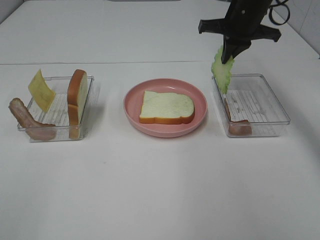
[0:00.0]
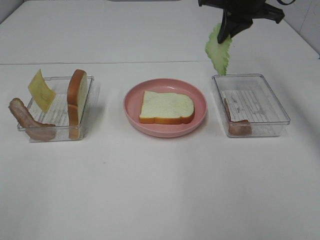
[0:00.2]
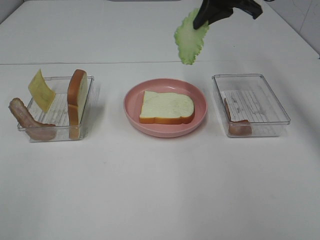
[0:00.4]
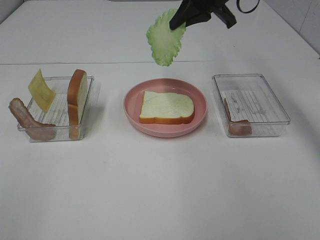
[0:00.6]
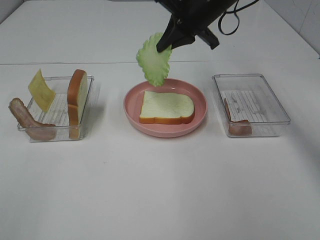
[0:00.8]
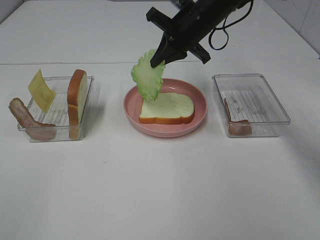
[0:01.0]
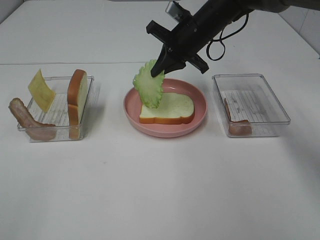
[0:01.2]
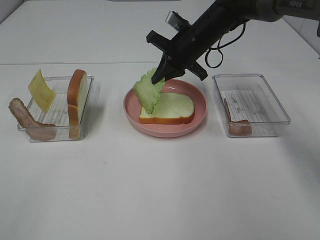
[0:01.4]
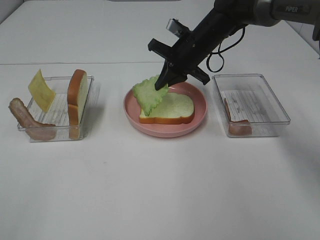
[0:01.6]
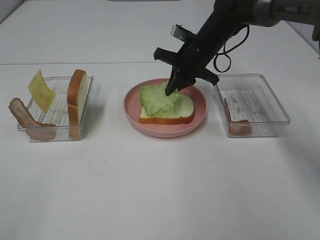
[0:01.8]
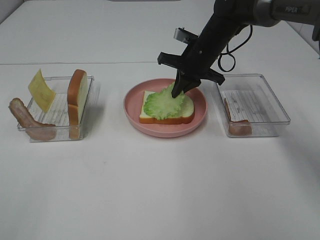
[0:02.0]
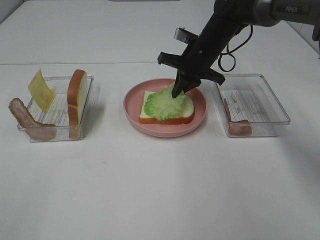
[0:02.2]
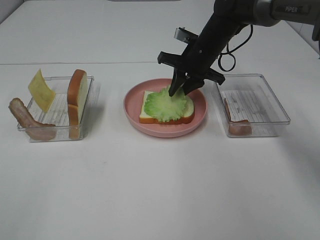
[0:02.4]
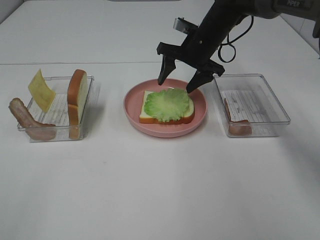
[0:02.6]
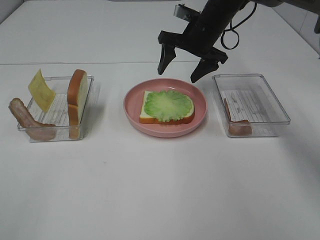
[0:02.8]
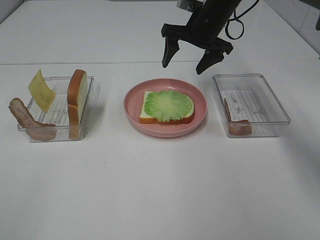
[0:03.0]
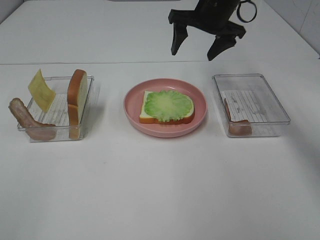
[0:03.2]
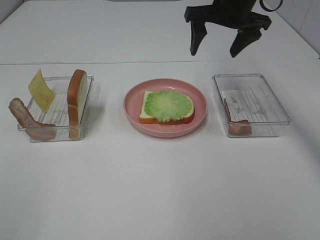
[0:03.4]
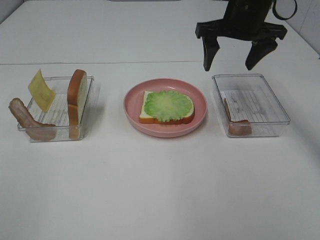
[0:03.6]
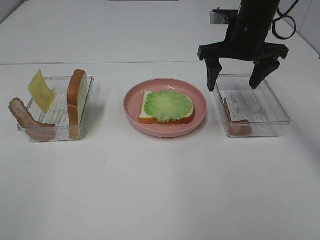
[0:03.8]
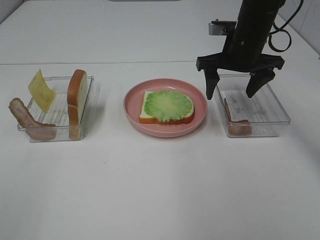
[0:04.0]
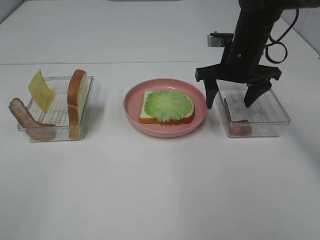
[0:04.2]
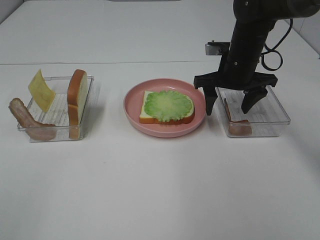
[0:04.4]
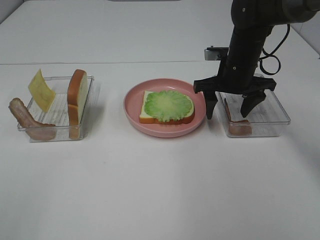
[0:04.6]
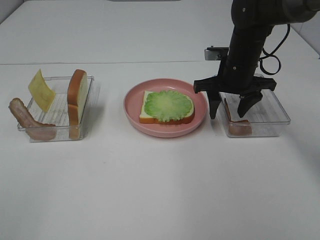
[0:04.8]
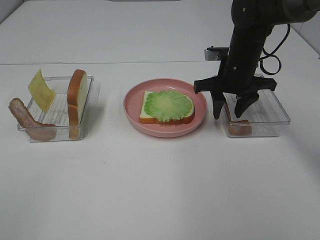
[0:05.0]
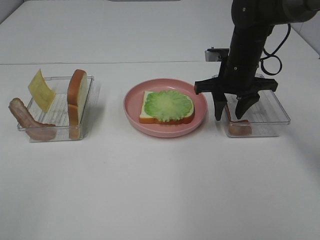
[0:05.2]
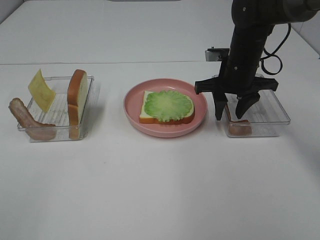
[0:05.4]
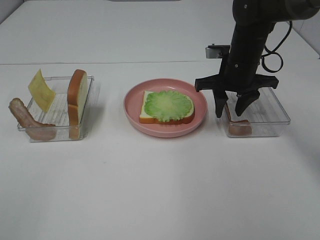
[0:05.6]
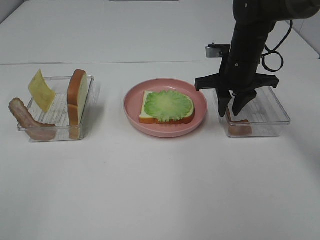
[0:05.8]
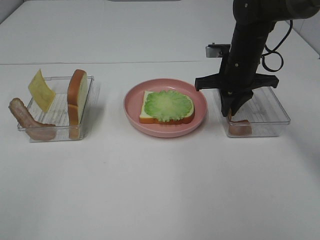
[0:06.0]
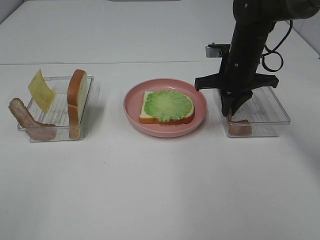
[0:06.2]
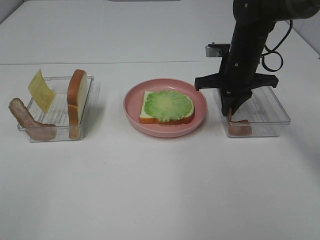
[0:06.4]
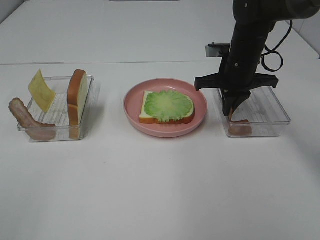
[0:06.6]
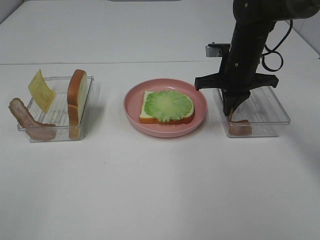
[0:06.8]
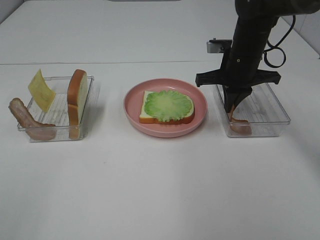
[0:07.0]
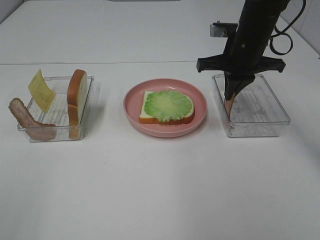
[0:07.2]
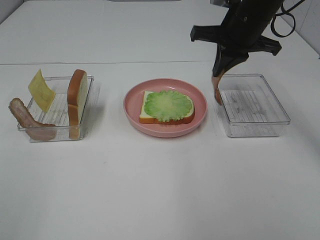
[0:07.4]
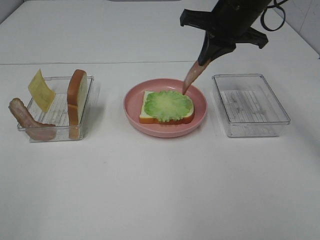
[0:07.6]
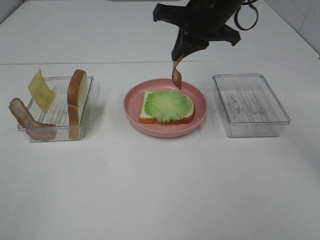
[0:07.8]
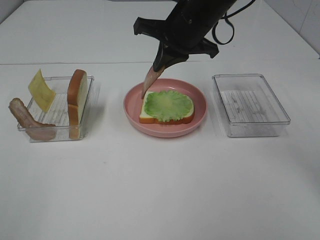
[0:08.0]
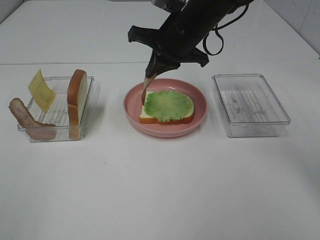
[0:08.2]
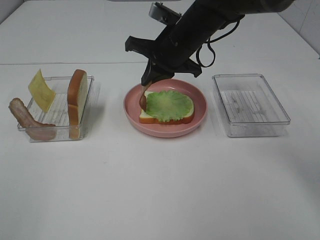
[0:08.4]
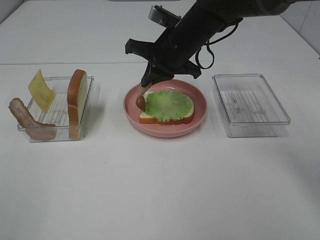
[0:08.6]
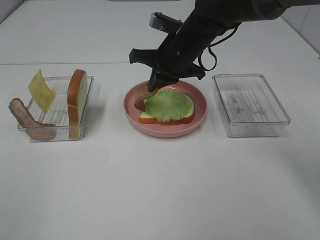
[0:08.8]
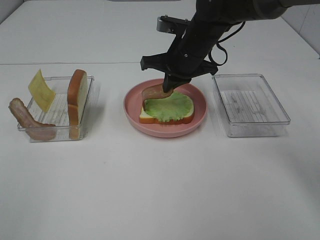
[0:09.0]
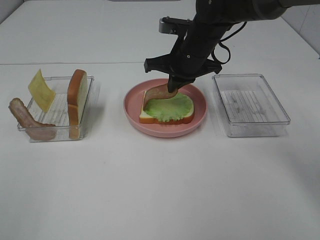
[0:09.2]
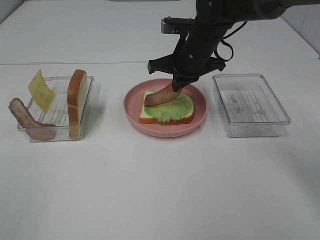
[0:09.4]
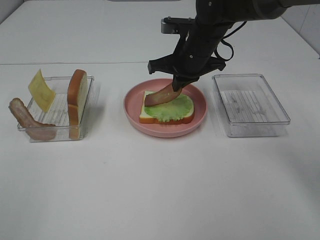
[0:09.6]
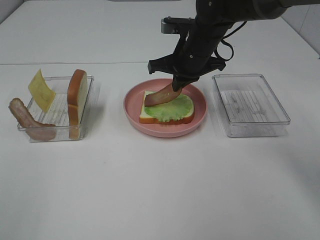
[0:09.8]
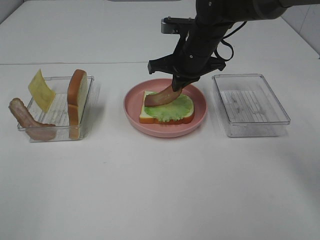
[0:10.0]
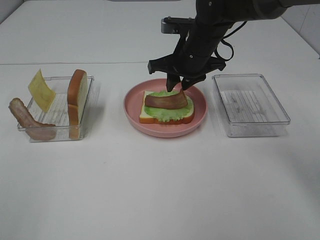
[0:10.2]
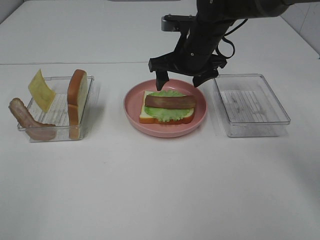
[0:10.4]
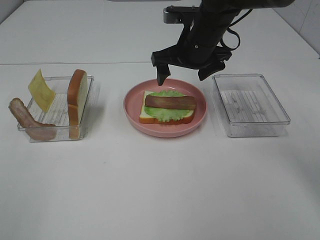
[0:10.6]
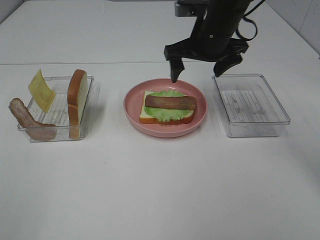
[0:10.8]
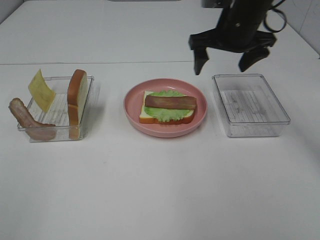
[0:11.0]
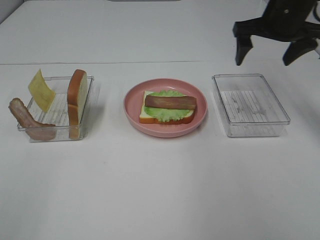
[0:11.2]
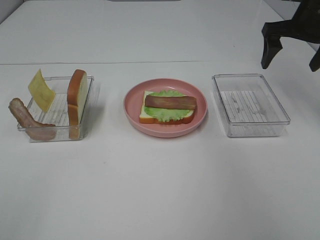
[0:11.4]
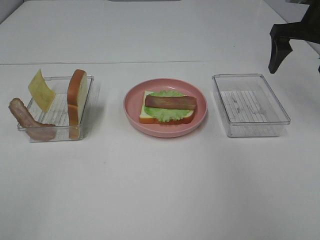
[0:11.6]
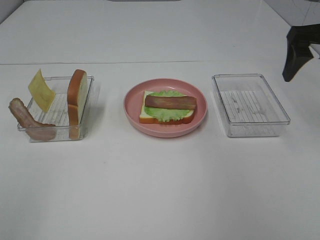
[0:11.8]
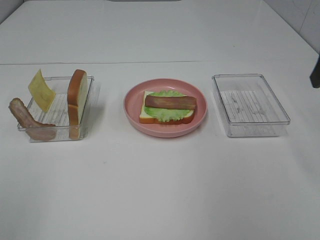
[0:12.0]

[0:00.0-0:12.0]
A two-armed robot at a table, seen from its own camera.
Task of the whole recording: Make sandwiches.
Step, 0:00.0 to 0:02.8: Right hand:place the lettuce slice on the bread slice.
Step, 0:03.0 to 0:06.4: Right hand:grab the bacon.
Step, 0:06.6 to 0:10.4: Right hand:place bacon on lettuce slice.
0:00.0 to 0:01.6: The right gripper goes about 10 cm downward and to the left.
0:01.6 to 0:03.0: The right gripper moves upward, about 5 cm, and opens.
0:03.0 to 0:04.4: The right gripper goes about 10 cm backward, downward and to the right.
0:04.4 to 0:06.0: The right gripper closes.
0:06.0 to 0:07.6: The right gripper moves upward, about 10 cm.
0:07.6 to 0:09.0: The right gripper travels downward and to the left by approximately 10 cm.
0:09.0 to 0:10.4: The right gripper opens up.
0:10.4 to 0:12.0: The right gripper shifts roughly 30 cm to the right, backward and upward.

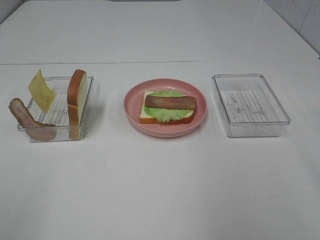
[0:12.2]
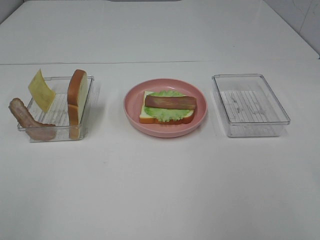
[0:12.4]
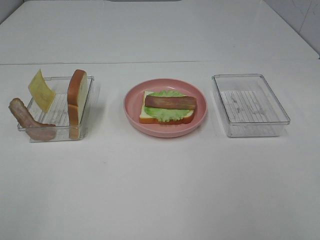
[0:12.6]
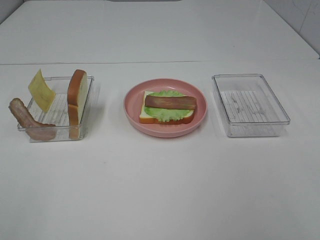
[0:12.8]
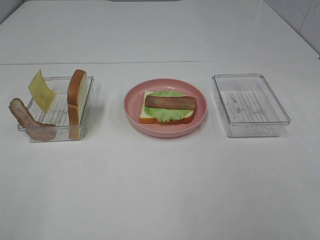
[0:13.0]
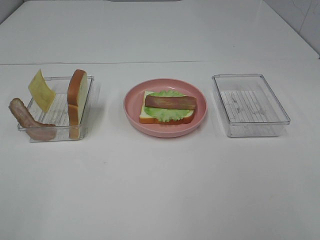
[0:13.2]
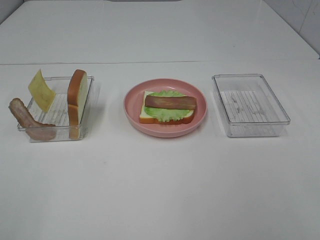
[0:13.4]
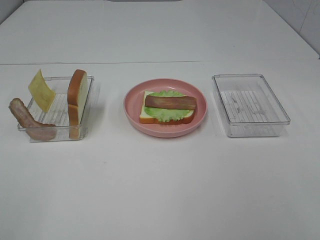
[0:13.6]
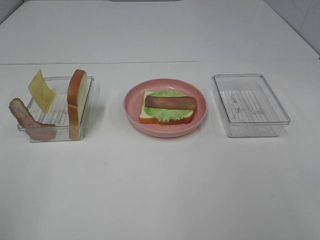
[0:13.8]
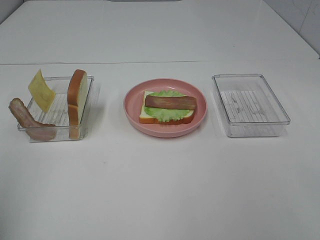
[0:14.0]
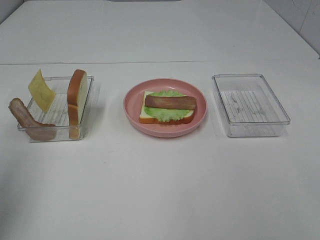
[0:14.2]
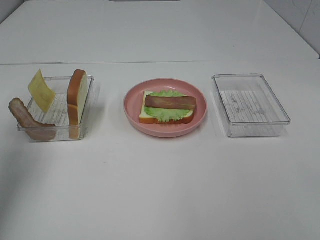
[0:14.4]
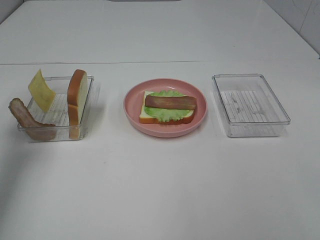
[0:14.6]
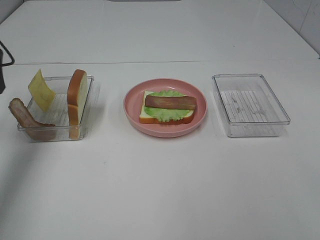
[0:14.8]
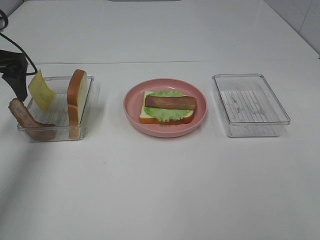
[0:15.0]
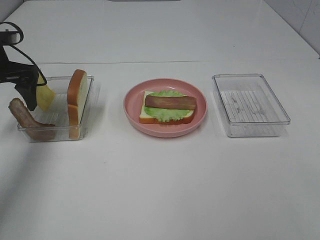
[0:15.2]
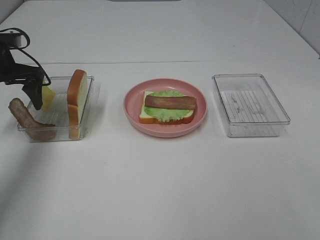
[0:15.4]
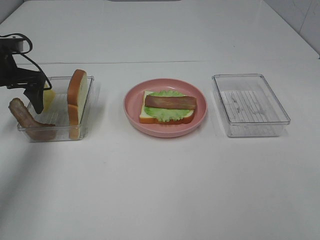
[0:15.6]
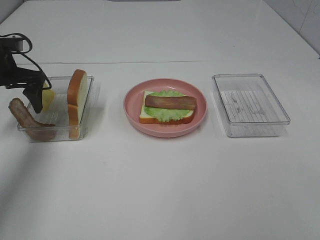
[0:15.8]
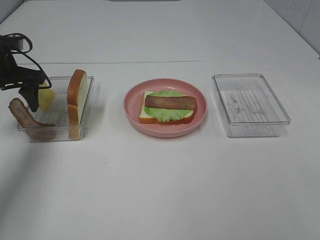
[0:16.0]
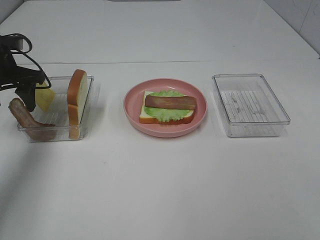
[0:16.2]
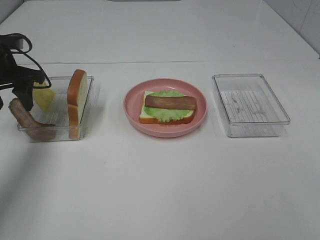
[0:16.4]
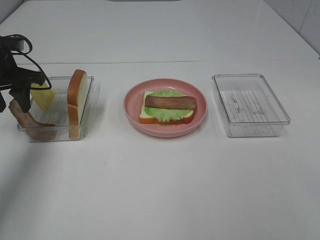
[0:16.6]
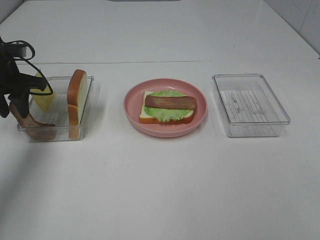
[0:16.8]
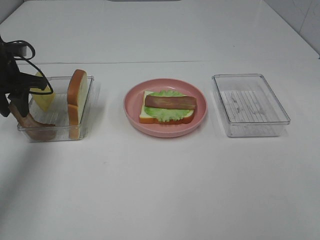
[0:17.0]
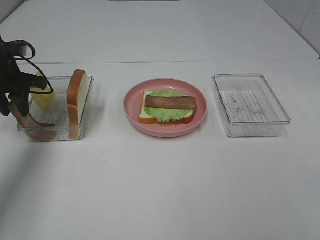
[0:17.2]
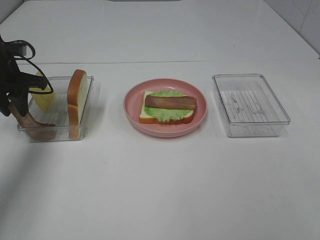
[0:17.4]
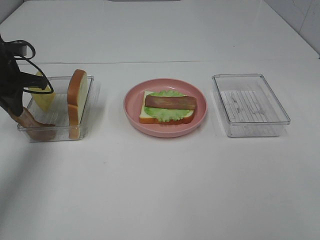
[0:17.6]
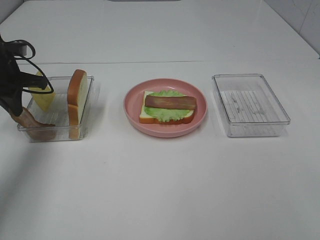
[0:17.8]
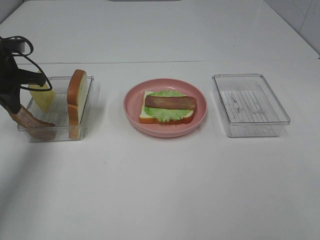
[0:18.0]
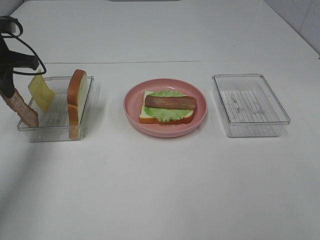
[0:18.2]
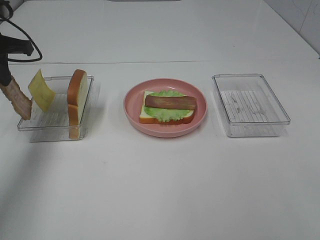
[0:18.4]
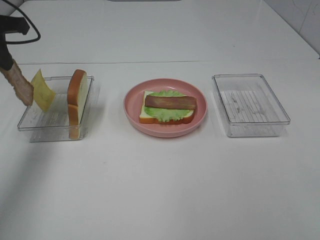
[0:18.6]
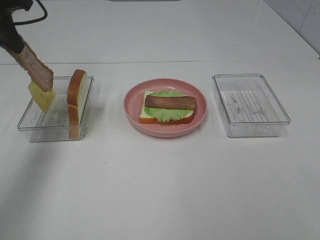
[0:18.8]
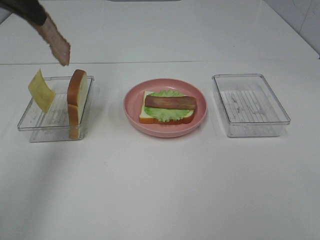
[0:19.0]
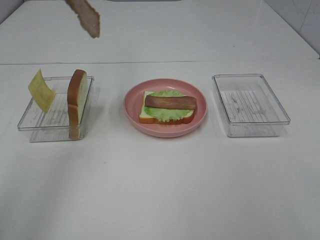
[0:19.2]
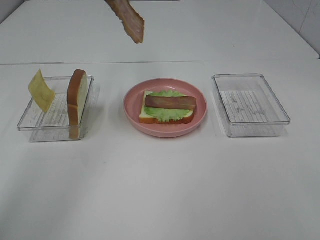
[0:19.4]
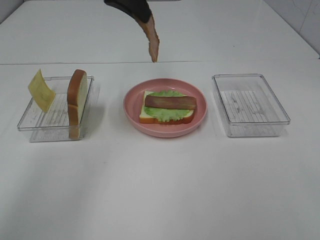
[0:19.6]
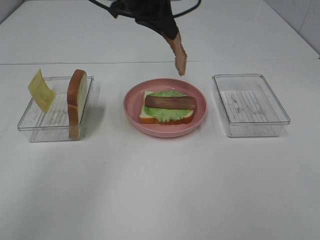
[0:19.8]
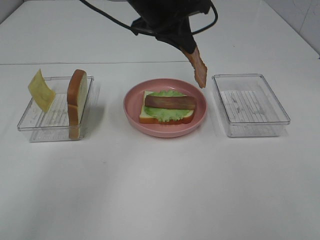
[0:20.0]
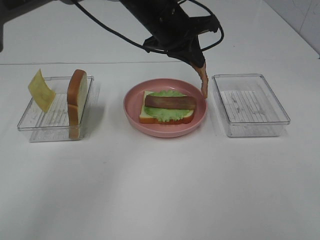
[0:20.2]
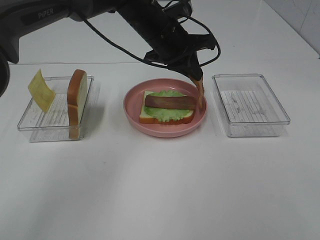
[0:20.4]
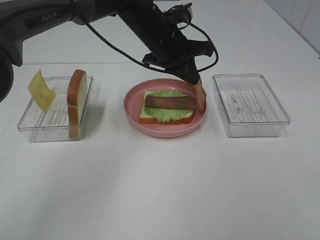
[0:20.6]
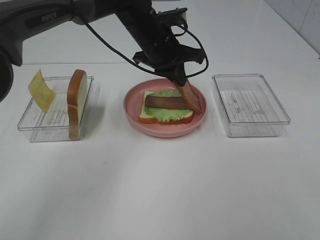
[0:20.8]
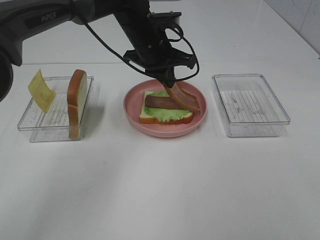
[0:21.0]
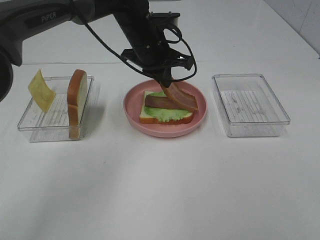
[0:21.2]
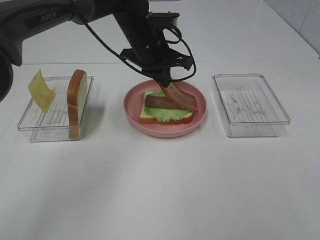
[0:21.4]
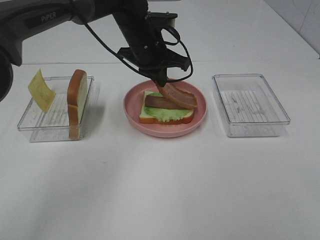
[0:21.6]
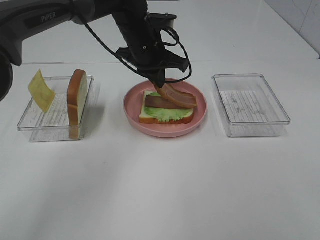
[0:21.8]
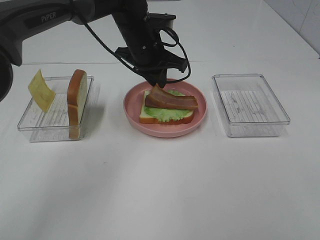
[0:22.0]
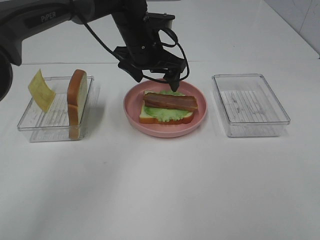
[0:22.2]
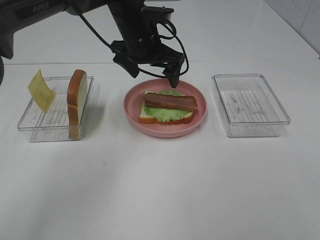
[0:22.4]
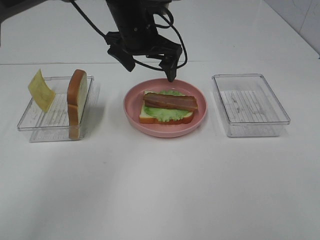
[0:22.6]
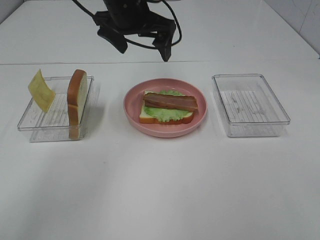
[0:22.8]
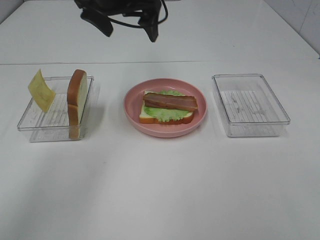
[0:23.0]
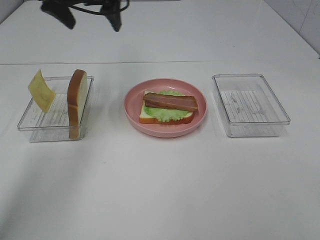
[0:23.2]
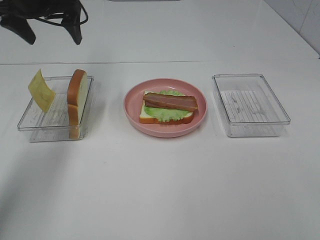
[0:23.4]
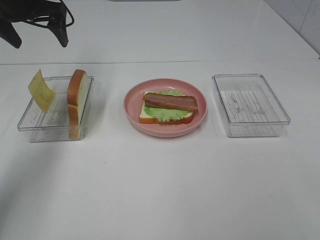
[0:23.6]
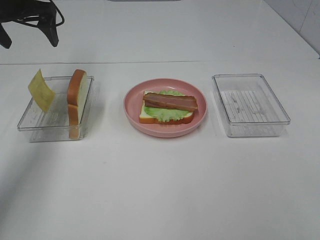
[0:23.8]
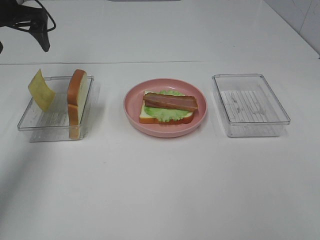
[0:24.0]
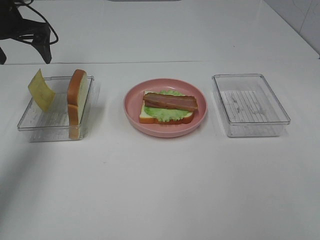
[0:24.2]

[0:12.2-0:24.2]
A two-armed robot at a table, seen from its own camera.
Task of the whole recording: Make sandwiches.
Step, 0:12.2 to 0:17.6: Left hand:grab the bacon.
Step, 0:17.8 to 0:22.0: Left hand:place bacon on bacon.
0:13.8 to 0:15.2: The left gripper is displaced forward by some 35 cm.
0:15.2 to 0:16.6: The left gripper closes.
0:16.6 to 0:18.2: The left gripper closes its fingers.
0:18.2 to 0:19.8: The left gripper shifts approximately 25 cm to the right.
0:19.8 to 0:21.2: The left gripper goes some 10 cm downward.
0:21.2 to 0:22.6: The left gripper opens its fingers.
0:22.6 to 0:24.2: The left gripper is displaced to the left by about 25 cm.
